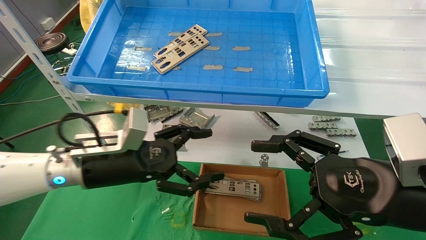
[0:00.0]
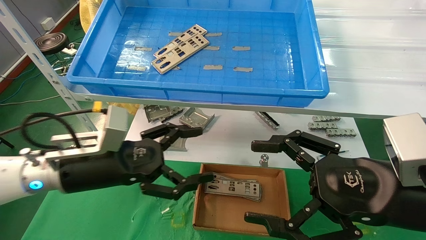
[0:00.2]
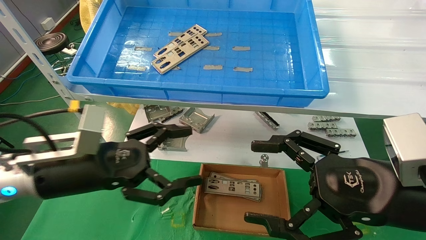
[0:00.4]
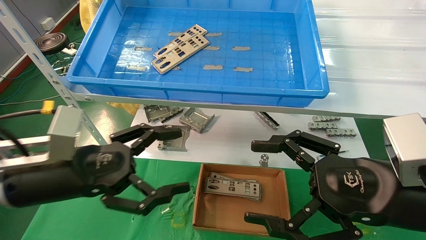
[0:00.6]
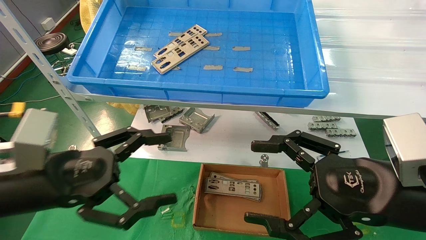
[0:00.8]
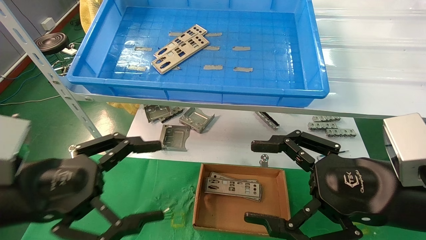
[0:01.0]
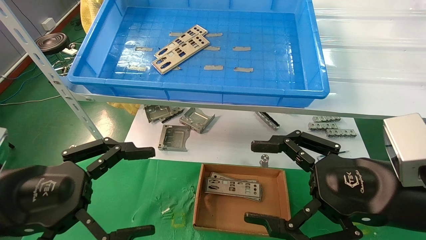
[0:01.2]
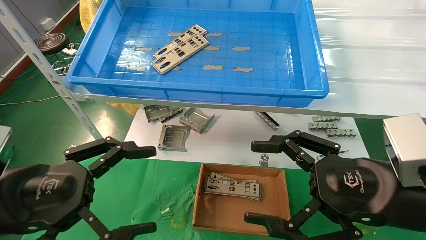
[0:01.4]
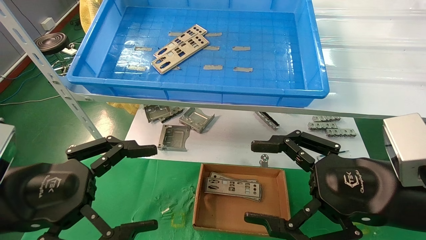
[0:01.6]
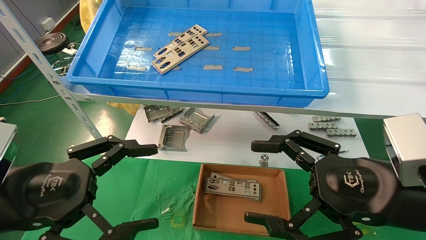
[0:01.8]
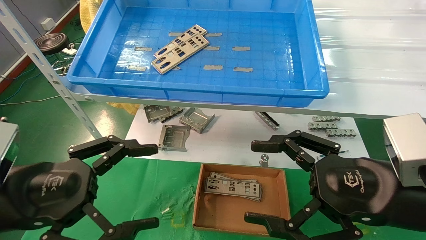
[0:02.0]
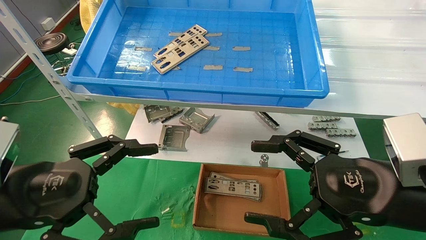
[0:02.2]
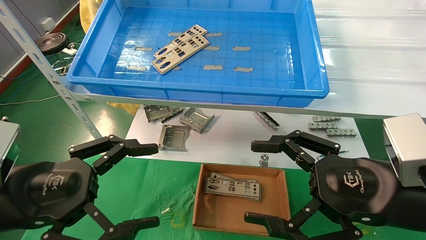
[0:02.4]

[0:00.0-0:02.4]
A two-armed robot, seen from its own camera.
Task of the whole recording: pick up the parts on the tray and put them in the cardboard box.
0.0 to 1.2 s: The left gripper goes some 15 cm backward and to the left.
1.2 to 2.4 s: Neither gripper changes place.

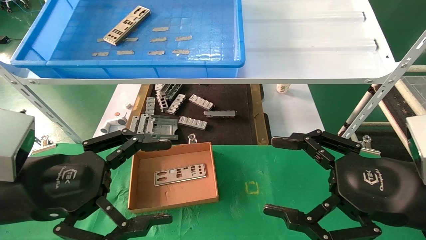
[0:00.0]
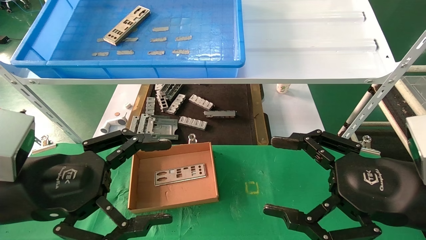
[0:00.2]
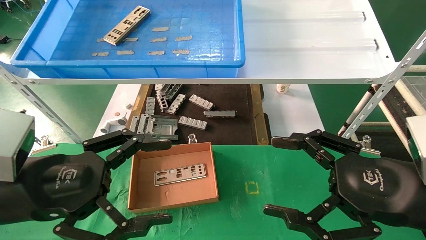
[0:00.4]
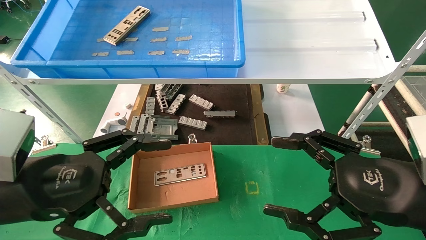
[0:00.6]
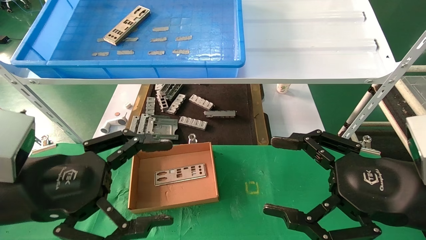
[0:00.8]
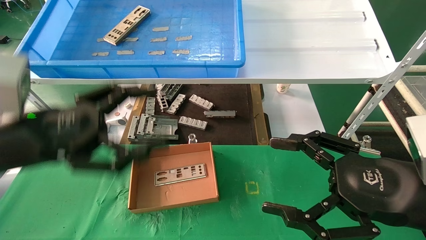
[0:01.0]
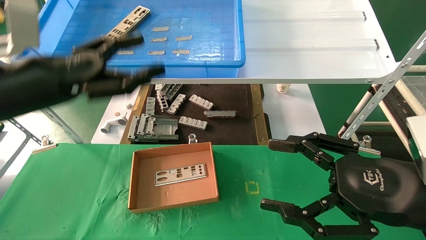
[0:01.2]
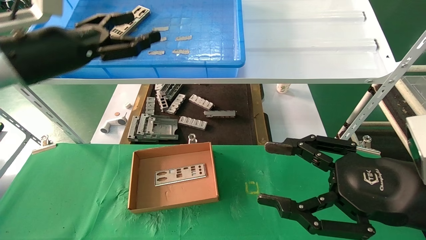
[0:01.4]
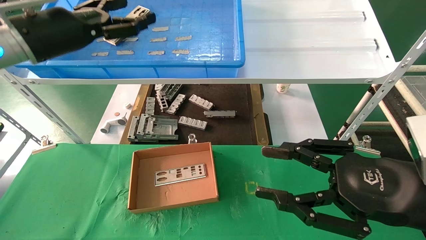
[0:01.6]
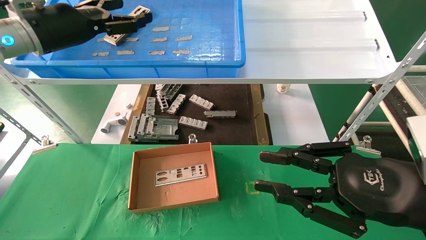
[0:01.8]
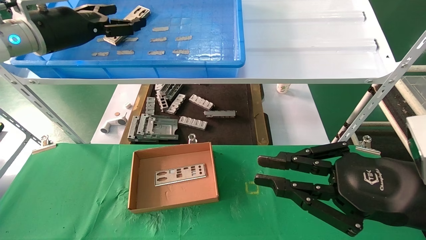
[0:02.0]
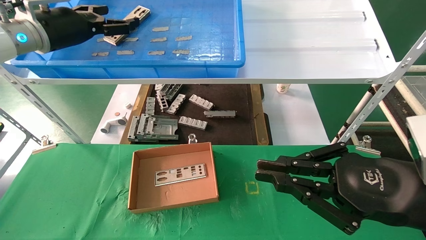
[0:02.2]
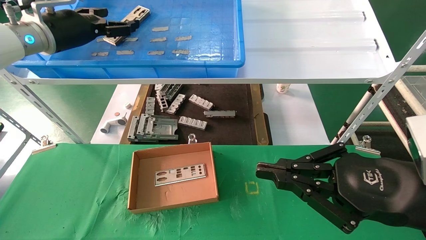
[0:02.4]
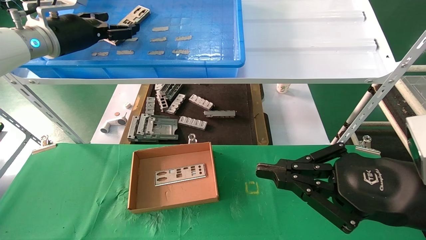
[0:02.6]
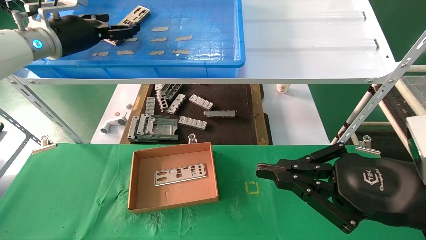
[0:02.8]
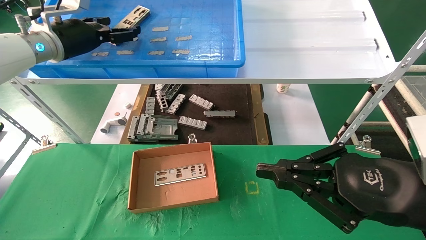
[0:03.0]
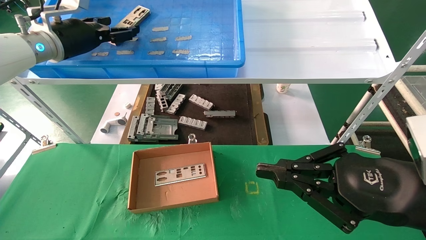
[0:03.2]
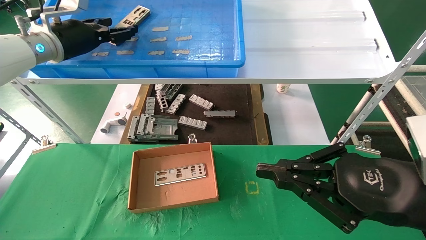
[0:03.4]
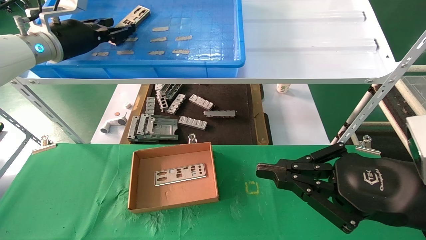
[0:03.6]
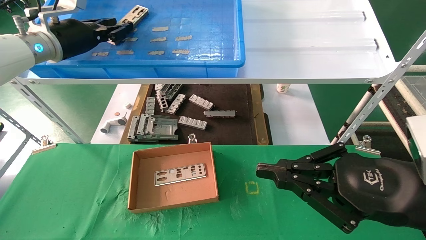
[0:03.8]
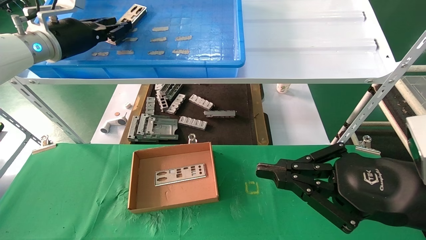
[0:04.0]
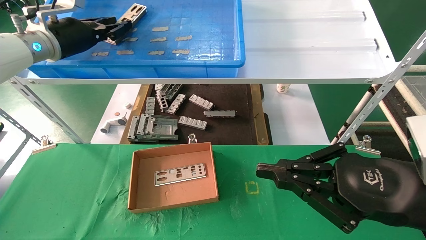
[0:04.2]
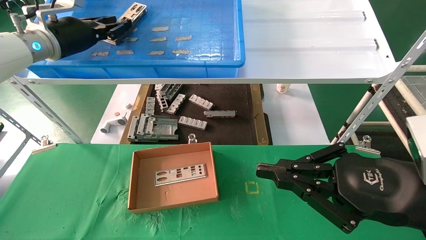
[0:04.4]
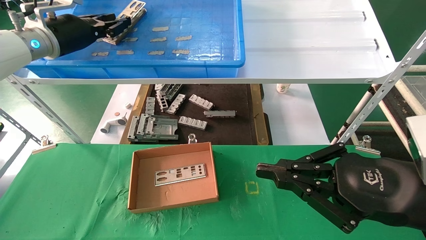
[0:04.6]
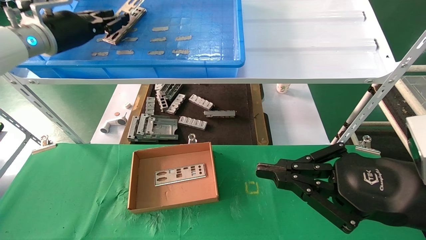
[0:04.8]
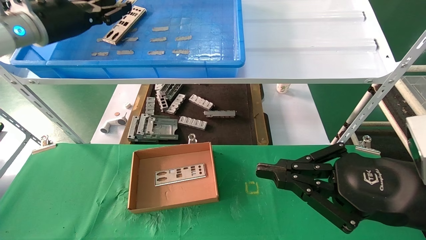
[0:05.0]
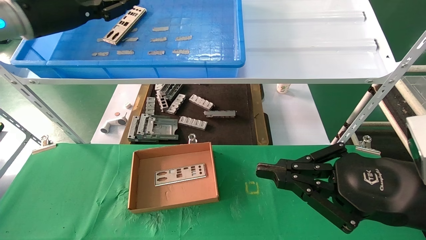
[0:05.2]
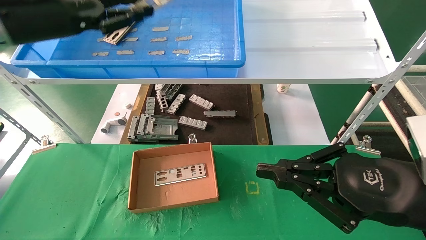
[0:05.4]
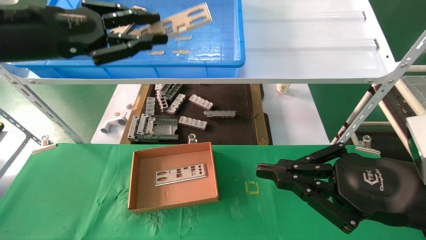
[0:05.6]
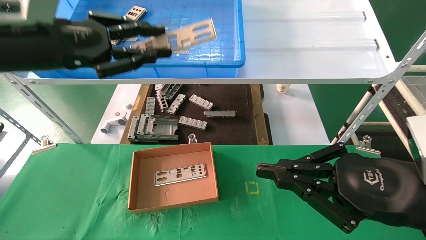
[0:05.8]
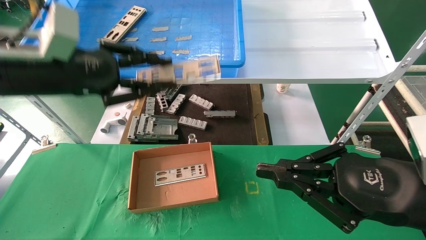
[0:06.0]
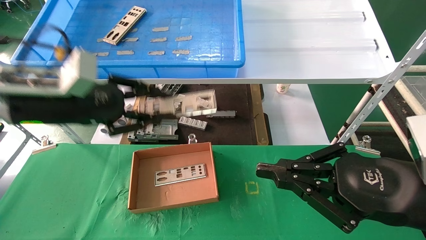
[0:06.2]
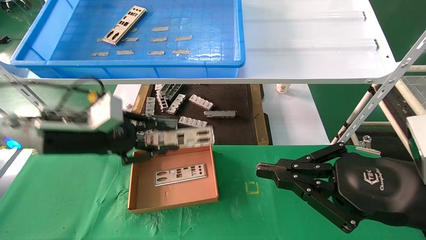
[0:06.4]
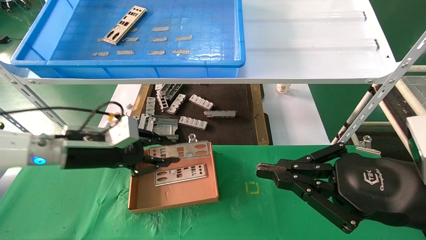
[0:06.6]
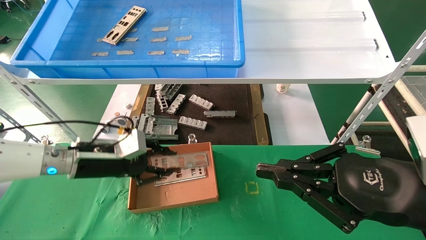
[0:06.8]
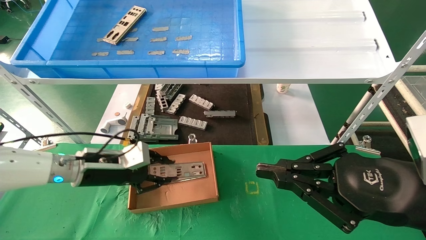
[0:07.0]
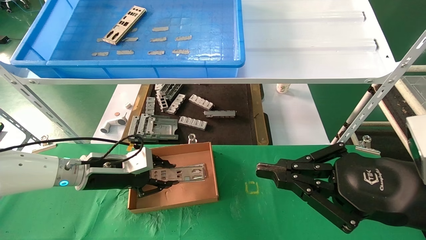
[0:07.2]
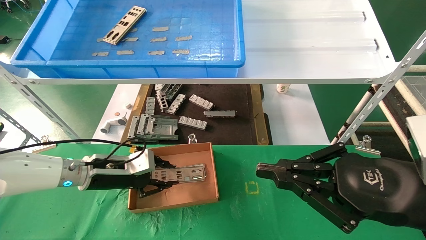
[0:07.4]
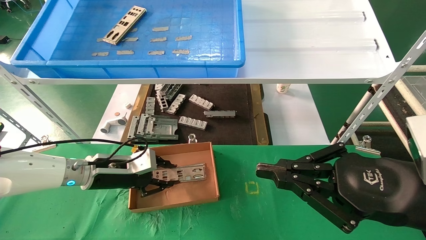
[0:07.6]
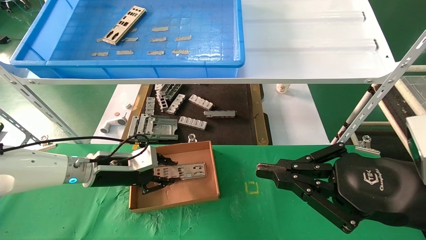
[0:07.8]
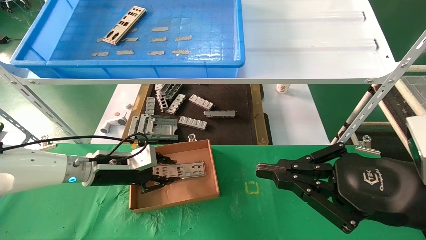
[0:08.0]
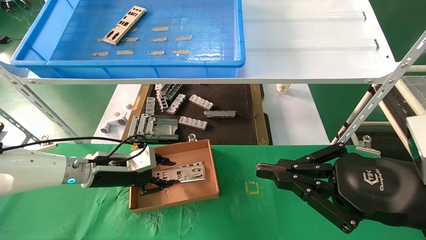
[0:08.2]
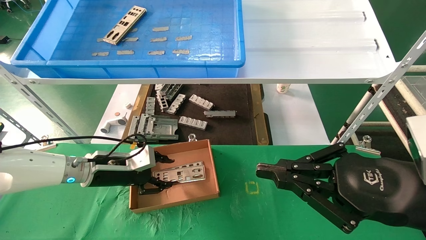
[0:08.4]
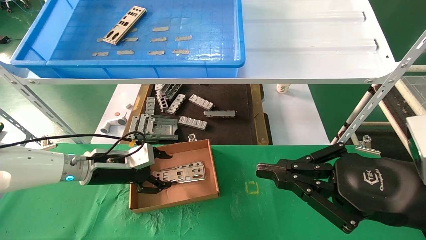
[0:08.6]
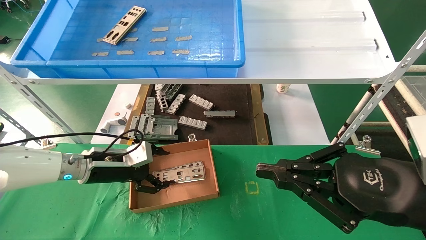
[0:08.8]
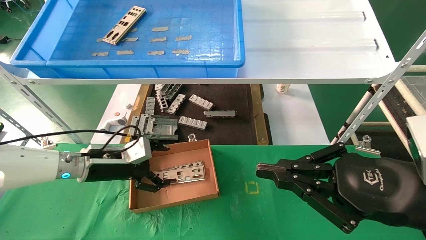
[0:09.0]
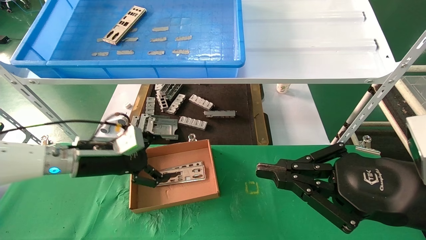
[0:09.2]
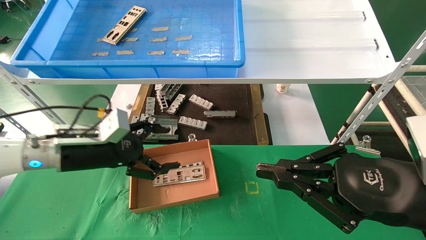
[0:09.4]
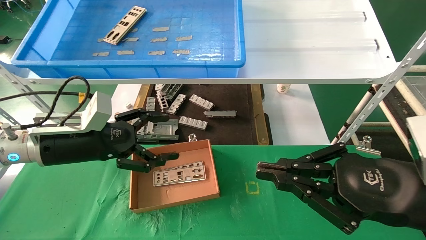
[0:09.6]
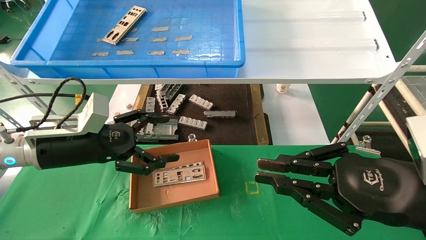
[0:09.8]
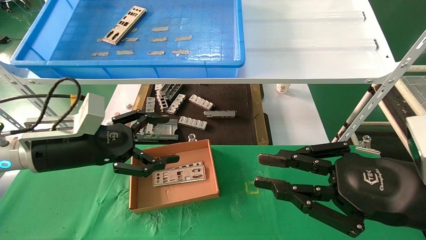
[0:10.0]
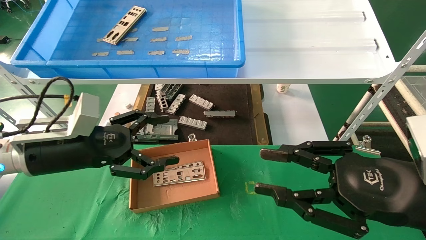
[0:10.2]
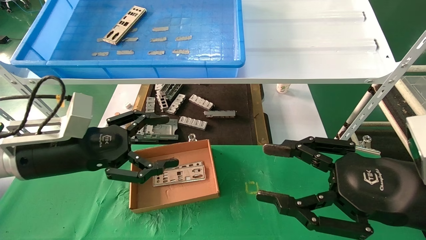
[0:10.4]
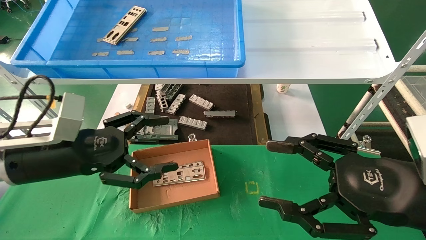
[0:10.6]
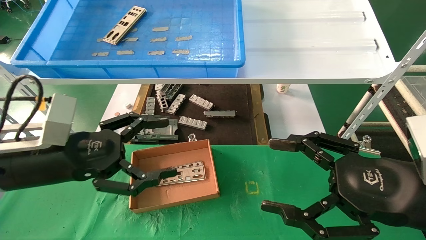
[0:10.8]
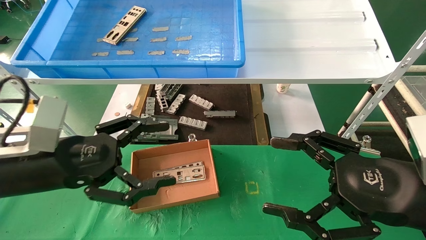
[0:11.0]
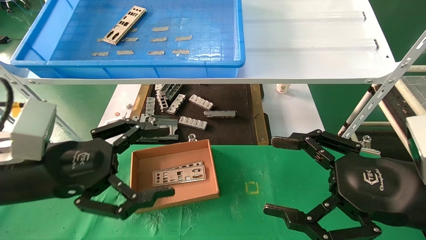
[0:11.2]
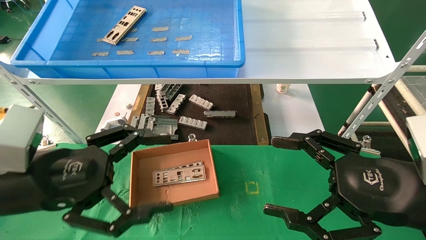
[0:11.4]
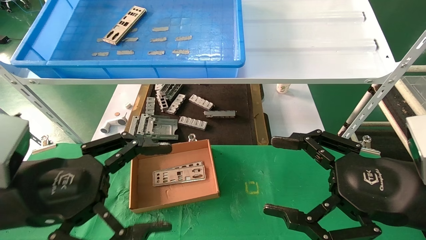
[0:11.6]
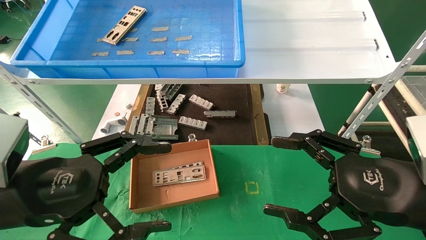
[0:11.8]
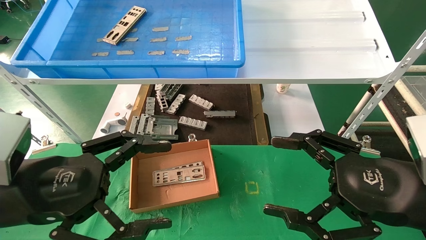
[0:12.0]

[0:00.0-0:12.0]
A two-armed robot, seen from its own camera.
Task of the whole recording: pick up the parts on the tray and put them in the cardboard box.
Step, 1.0 to 4.6 s: Pick up the IO bracket from the container box.
Step, 4.8 to 8.2 s: Place the IO bracket into the ingredient slot.
0.0 to 1.6 s: The right gripper closes. Meanwhile the left gripper moves forward and upward, about 25 cm.
1.6 to 3.0 s: The left gripper moves forward, roughly 10 cm. The right gripper closes its fingers.
3.0 to 4.4 s: The left gripper closes.
4.4 to 6.0 s: The left gripper is displaced backward by roughly 15 cm.
6.0 to 7.6 s: The left gripper travels downward and forward by some 25 cm.
7.6 to 9.0 s: The left gripper opens up.
9.0 to 10.4 s: The right gripper opens, while the left gripper moves backward and upward, some 15 cm.
10.4 to 12.0 s: The left gripper heads backward, covering some 10 cm; the right gripper opens up.

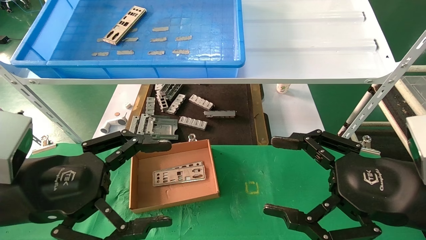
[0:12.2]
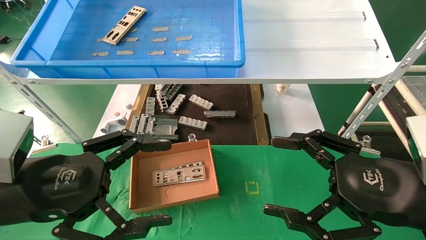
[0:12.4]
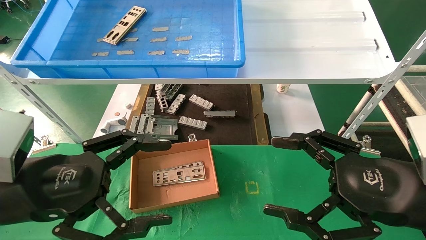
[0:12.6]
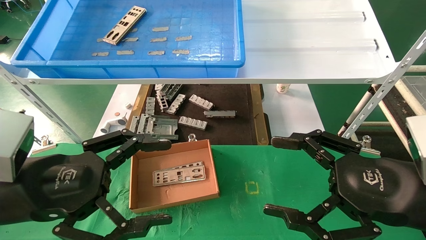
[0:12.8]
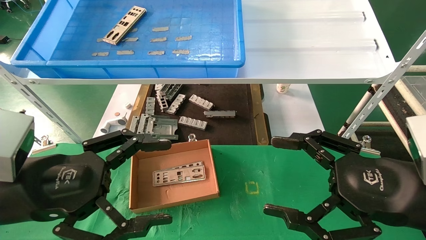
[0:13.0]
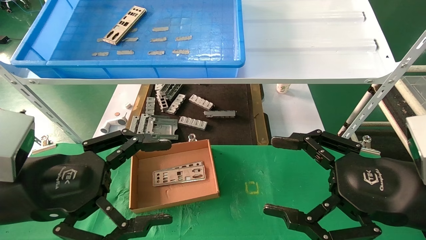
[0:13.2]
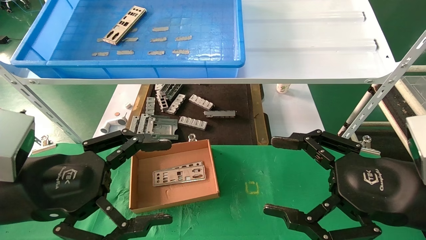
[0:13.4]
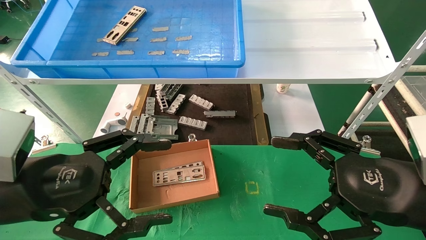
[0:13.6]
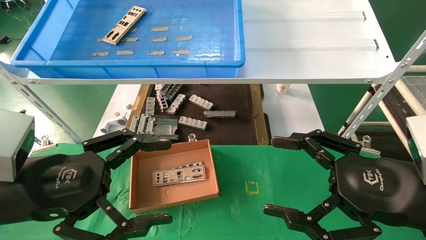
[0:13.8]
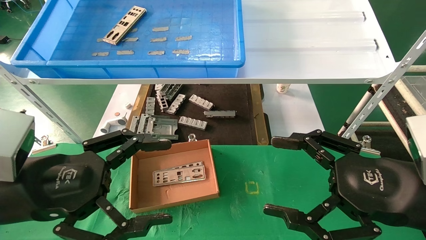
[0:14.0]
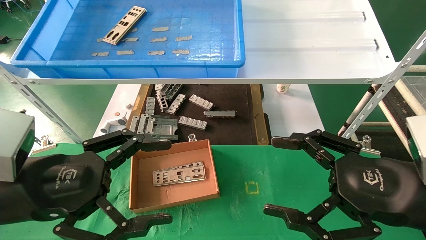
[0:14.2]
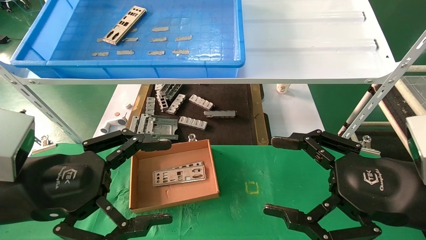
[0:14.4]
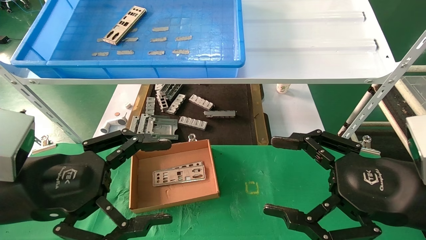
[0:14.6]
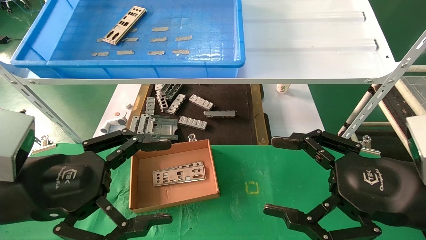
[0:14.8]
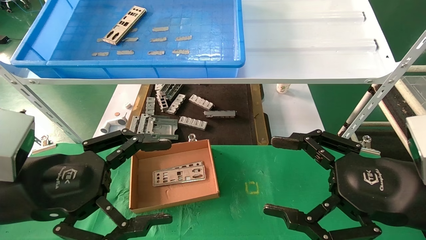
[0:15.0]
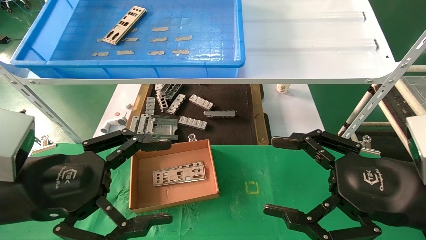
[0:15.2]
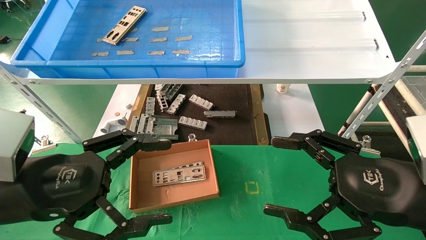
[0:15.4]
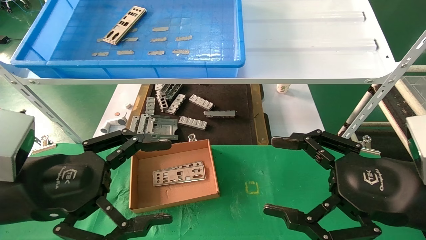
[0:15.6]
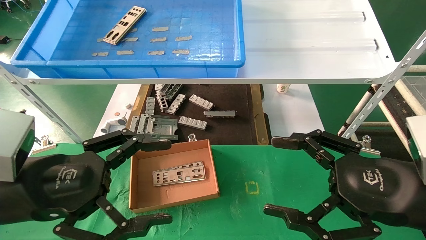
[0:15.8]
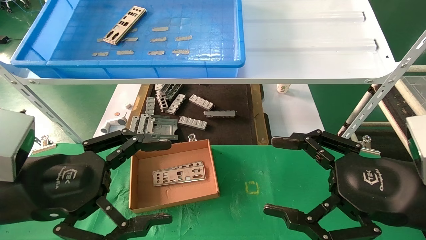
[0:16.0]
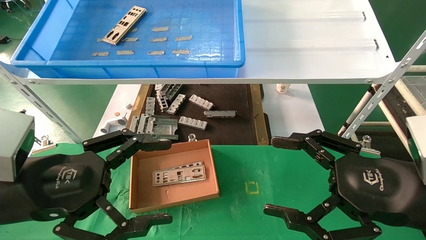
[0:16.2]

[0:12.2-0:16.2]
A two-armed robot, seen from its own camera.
Task of the whole recording: pick up the parts on the tray and put them in the cardboard box.
12.2 to 16.2 s: Neither gripper changes place.
